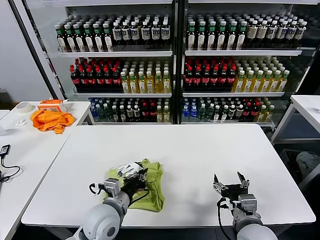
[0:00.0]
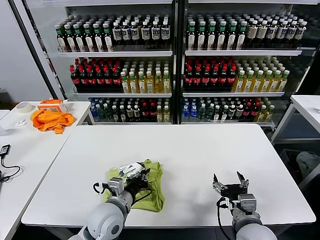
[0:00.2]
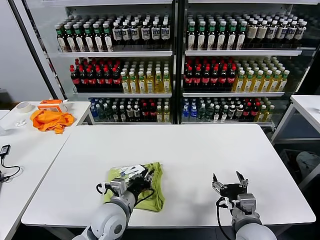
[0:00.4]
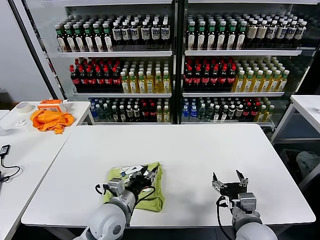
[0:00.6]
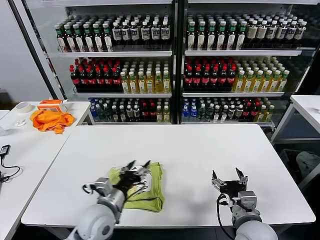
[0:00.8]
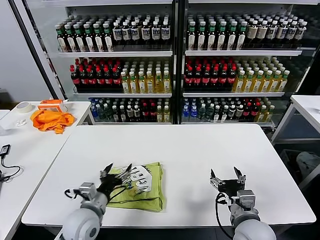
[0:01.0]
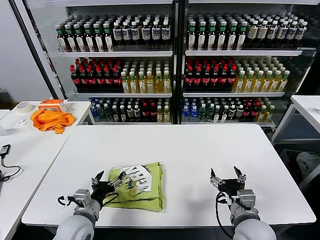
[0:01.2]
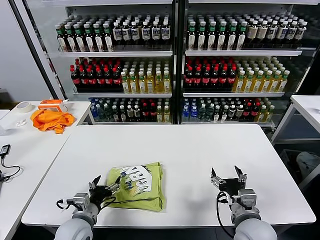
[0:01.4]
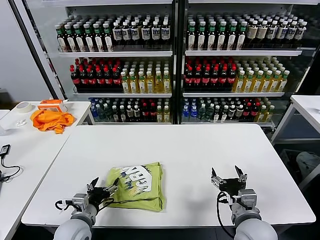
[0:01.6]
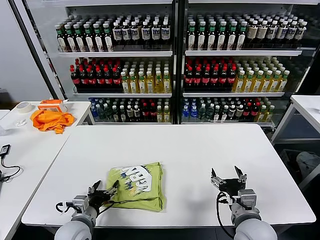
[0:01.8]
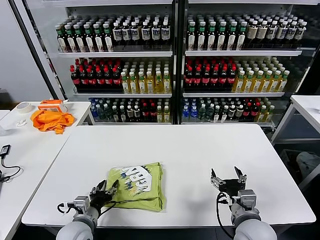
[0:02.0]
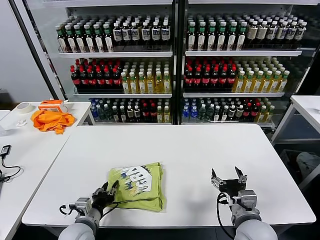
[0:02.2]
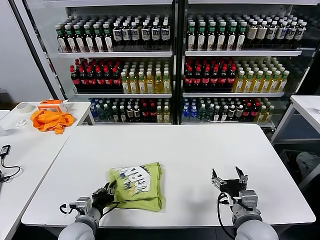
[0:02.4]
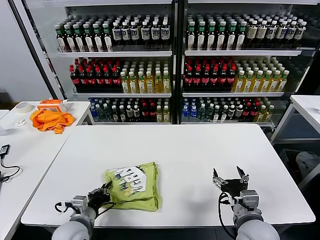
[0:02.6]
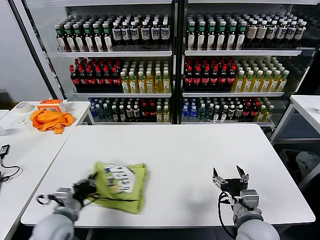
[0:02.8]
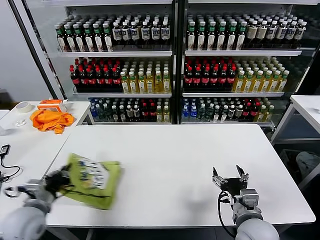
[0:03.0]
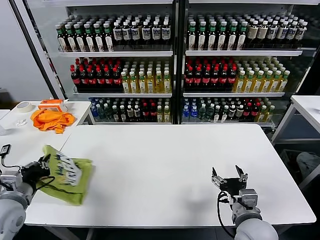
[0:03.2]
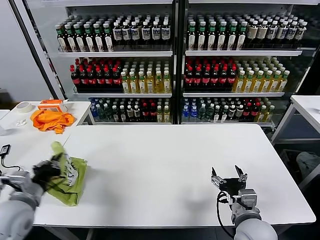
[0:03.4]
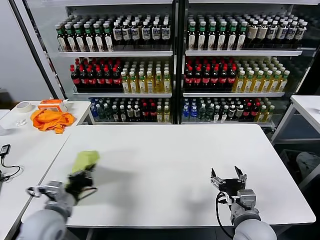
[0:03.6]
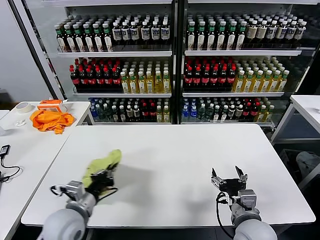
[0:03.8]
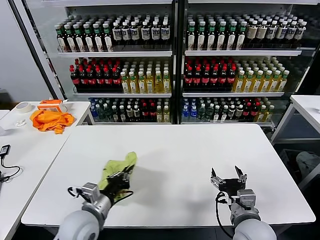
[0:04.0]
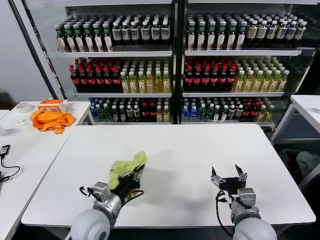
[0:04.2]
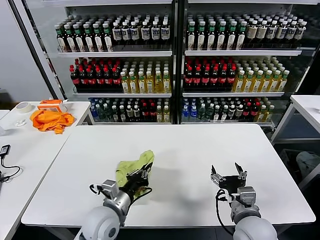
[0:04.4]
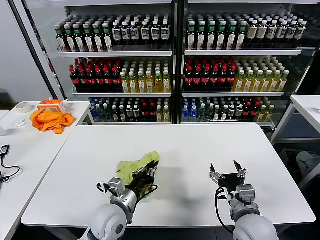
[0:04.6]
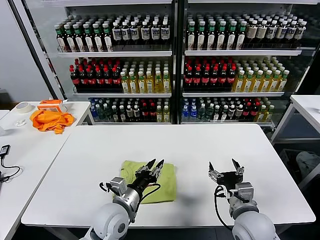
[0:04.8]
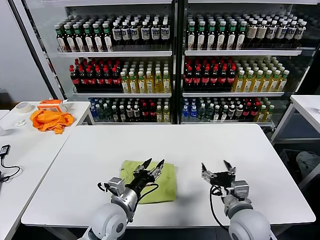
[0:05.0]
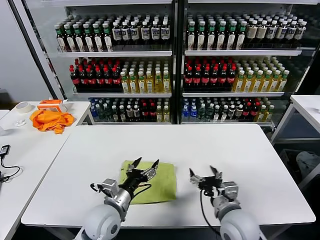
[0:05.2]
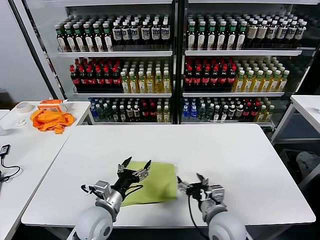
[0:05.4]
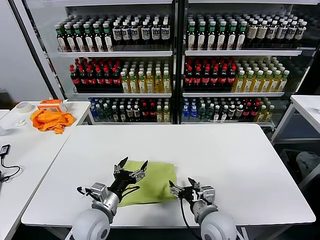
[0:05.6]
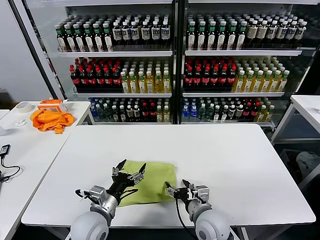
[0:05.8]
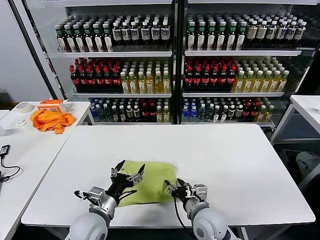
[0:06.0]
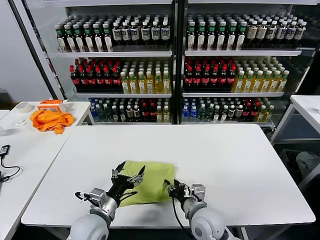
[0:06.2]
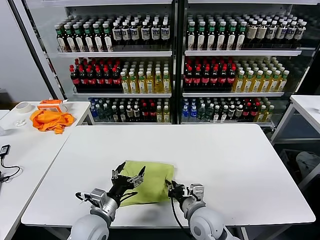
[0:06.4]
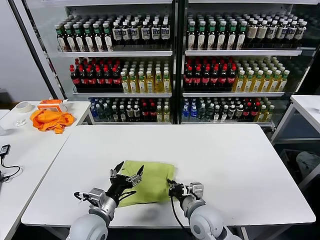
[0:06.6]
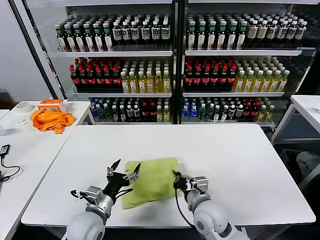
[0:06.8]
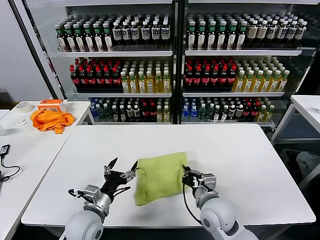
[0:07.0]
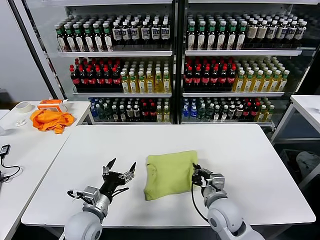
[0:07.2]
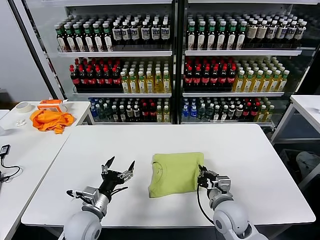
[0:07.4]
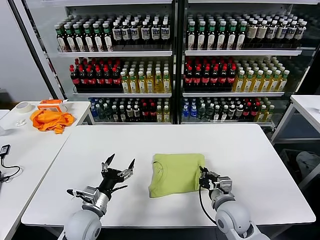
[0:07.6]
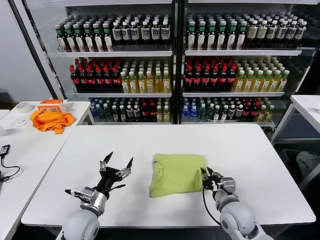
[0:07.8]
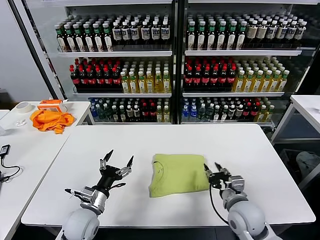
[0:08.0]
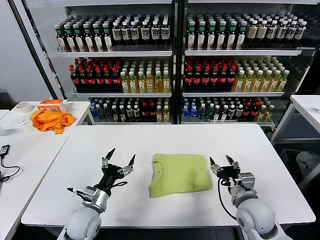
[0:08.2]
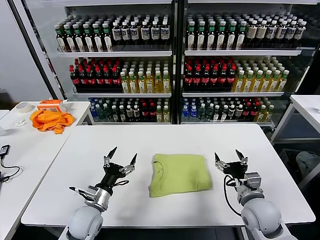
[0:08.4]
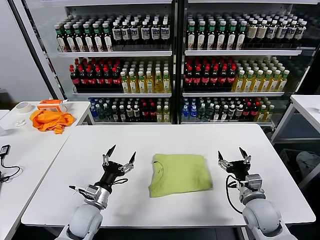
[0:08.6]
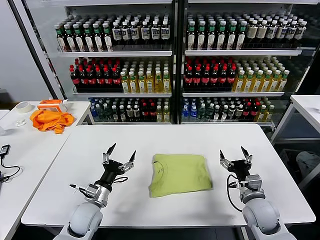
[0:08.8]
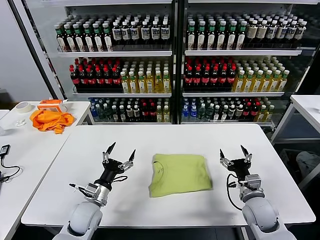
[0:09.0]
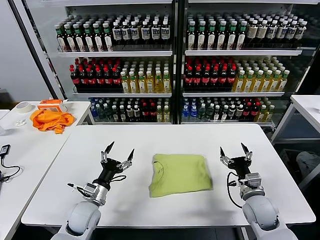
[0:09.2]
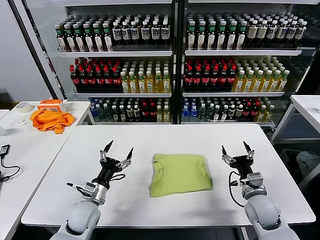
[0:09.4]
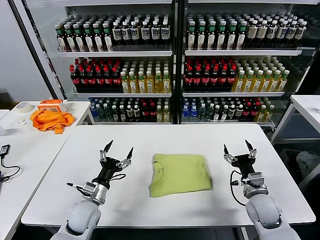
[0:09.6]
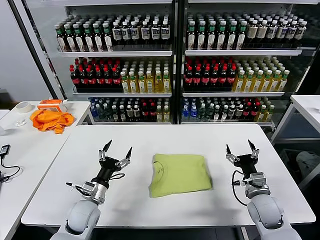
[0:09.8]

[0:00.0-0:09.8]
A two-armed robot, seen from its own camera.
Task of the whole recording: fold and organize the clothes.
Step, 0:00.6 to 0:04.6: Flip the folded clothes over with left gripper.
Step, 0:04.8 to 0:07.8: Drag the clothes to the center of the table.
0:00.0 to 0:01.4: The left gripper travels to the left and downward by about 10 cm, and opens its fingers.
0:01.4 to 0:02.8: The left gripper changes place by approximately 5 cm, and closes its fingers.
0:02.8 to 0:04.2: The left gripper goes roughly 10 cm to the right.
0:04.2 to 0:05.6: The left gripper opens its fingers. The right gripper shifts some 10 cm to the left.
0:05.6 to 0:07.0: The right gripper closes up.
0:07.0 to 0:08.4: The right gripper heads to the right, covering some 10 cm, and opens up.
0:08.4 to 0:09.8: The right gripper ends up some 5 cm from where it was.
